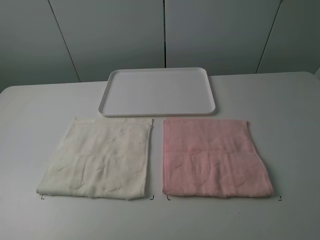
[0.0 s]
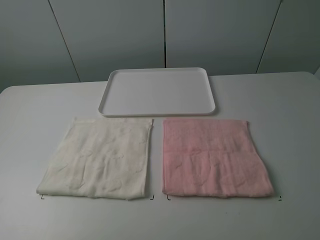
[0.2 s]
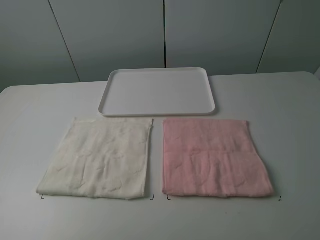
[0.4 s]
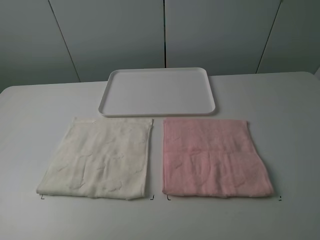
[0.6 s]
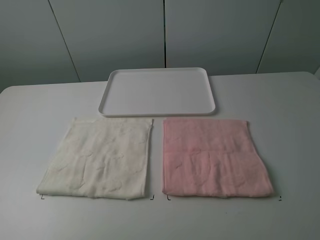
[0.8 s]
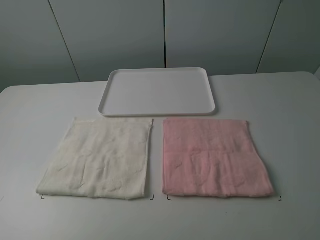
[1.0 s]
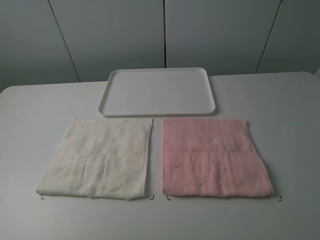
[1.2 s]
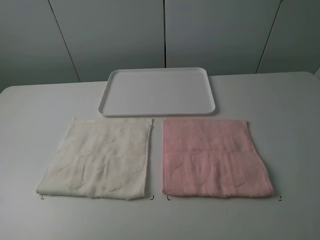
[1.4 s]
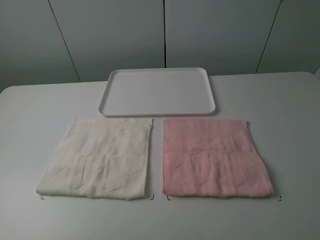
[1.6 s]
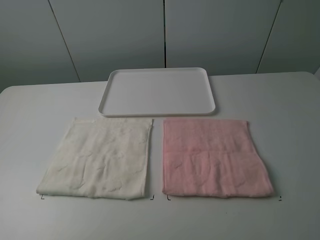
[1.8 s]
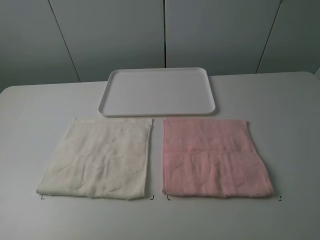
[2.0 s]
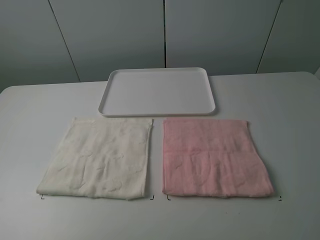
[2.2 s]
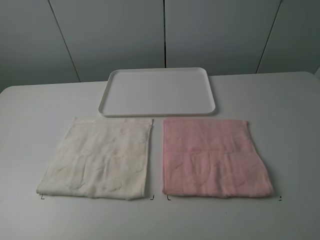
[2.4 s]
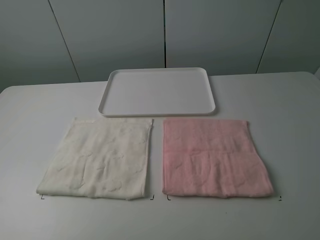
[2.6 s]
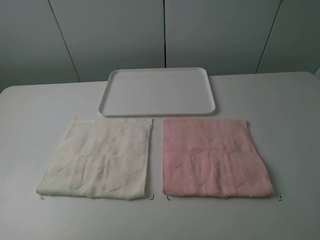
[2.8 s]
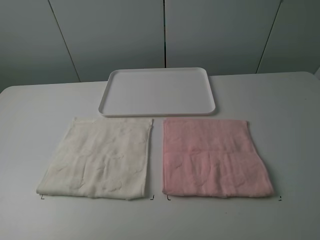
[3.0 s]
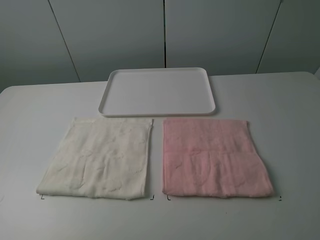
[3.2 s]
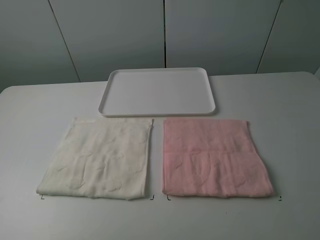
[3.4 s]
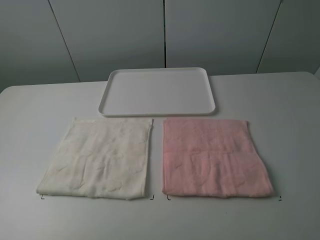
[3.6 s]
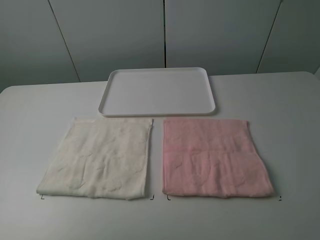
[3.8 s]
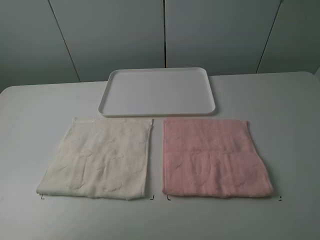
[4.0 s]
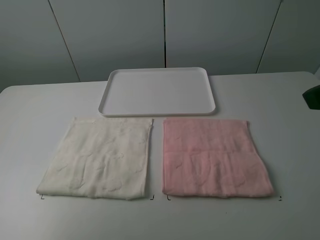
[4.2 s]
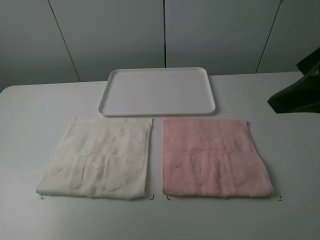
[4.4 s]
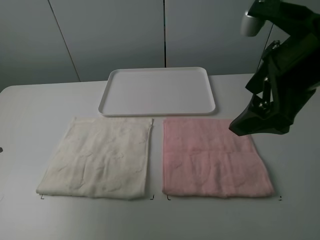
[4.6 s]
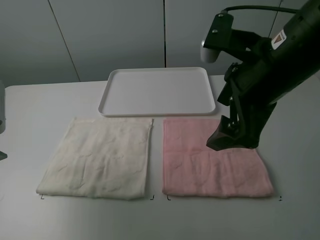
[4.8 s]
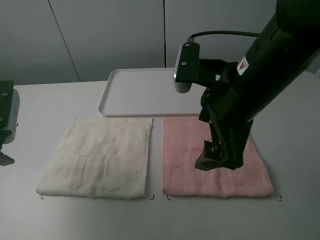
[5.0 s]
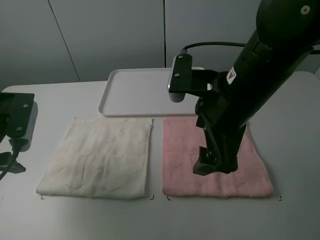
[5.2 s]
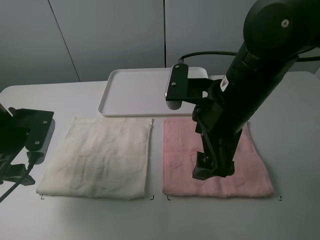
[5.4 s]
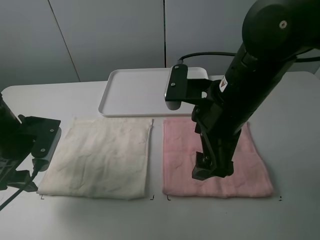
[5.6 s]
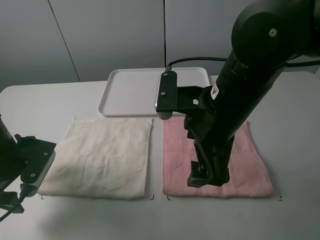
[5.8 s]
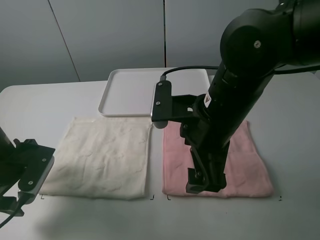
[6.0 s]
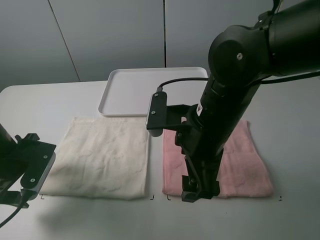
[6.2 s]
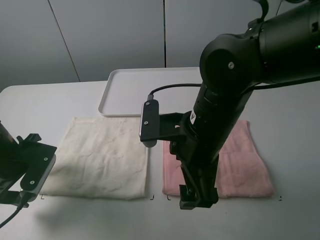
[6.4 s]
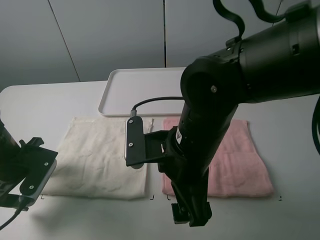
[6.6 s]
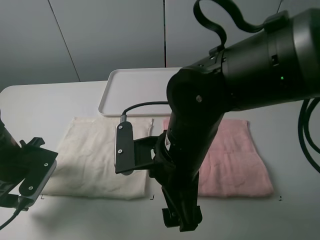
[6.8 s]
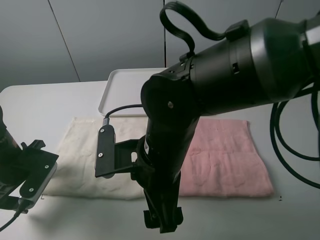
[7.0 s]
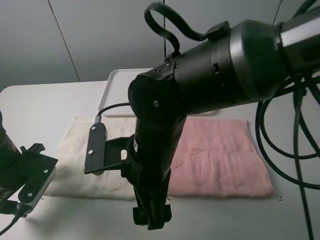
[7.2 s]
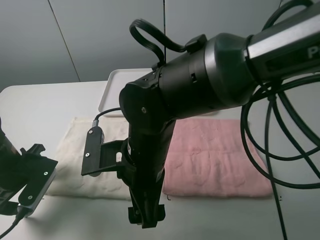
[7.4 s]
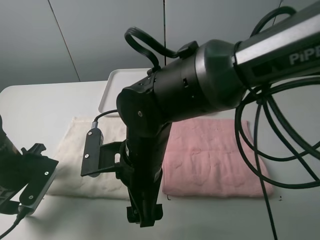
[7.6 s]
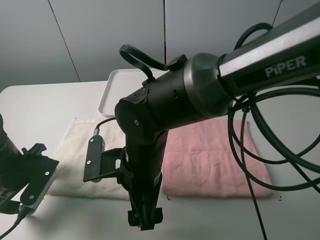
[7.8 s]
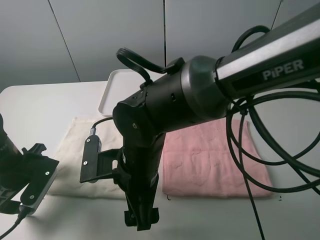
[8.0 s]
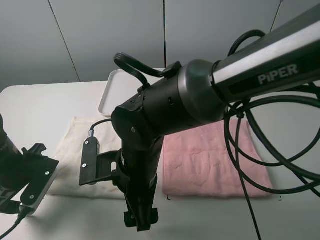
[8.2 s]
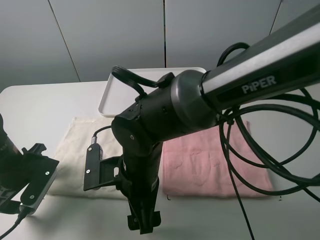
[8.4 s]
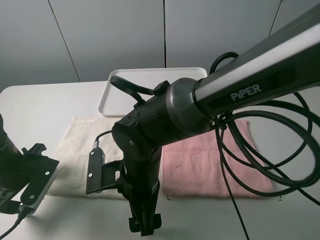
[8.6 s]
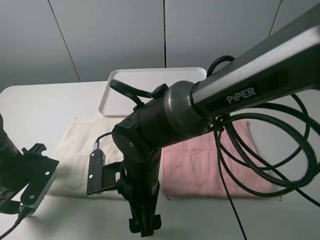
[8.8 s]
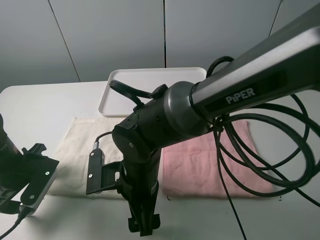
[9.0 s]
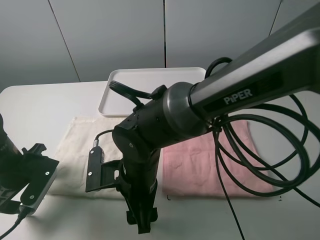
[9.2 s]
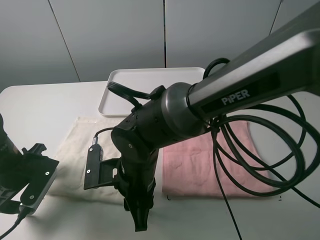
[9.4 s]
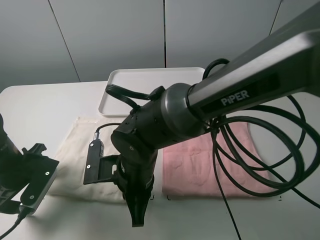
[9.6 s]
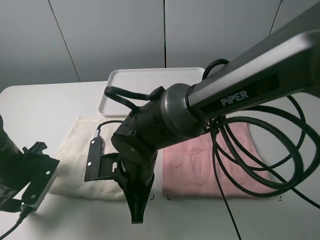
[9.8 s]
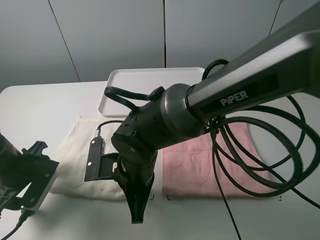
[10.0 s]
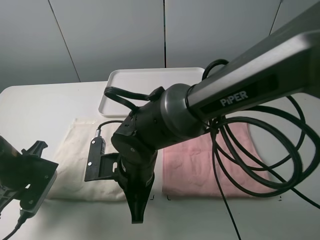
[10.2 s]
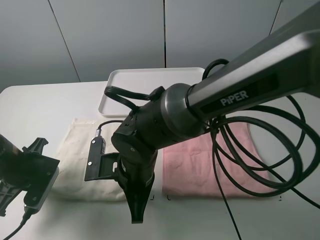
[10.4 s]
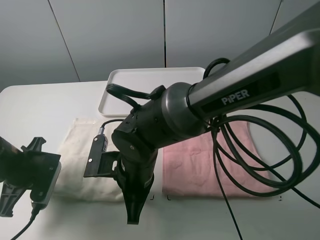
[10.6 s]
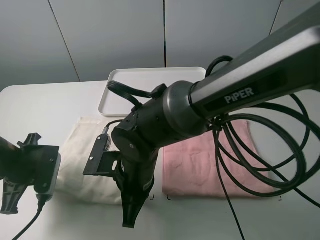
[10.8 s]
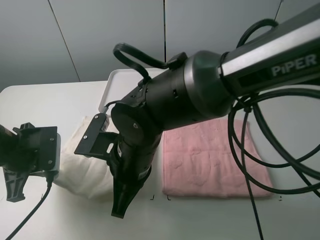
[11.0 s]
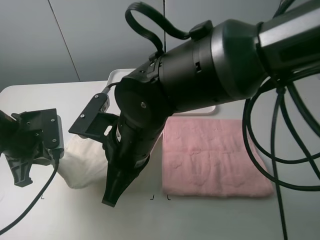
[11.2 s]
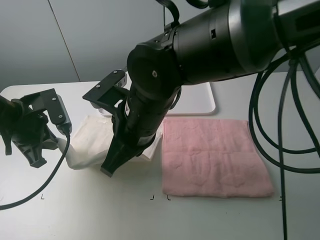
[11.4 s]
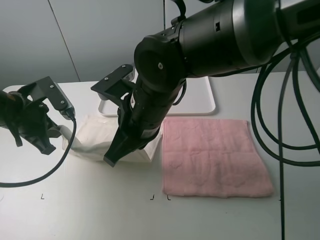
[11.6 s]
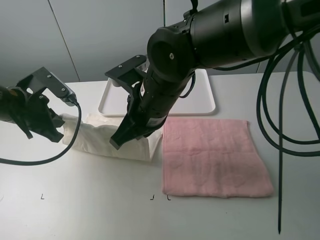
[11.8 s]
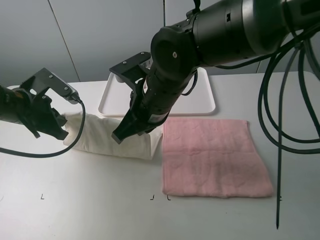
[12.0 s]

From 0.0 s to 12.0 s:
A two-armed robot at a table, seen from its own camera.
Task of the whole recording: fold one of the towels by two grippers and place it on the tray,then fold another towel by two grippers and place it on the folded towel.
Step, from 0.0 s to 10.8 s: Grasp the white towel with the left gripper.
From 0.0 s to 3.0 s: Neither gripper changes place.
From 3.0 s to 4.4 s: Both grippers move forward, some 15 cm.
From 4.4 s to 6.0 s: The left gripper goes some 15 cm downward. Meanwhile the right gripper goes roughly 20 cm to the left and downward.
From 6.0 s to 7.6 s: The right gripper shifts roughly 10 cm to the left and downward.
From 7.6 s to 9.0 s: The right gripper travels downward by some 5 cm.
From 9.0 s to 10.4 s: The right gripper closes its fingers; the left gripper closes.
From 10.4 s to 12.0 s: The left gripper goes some 10 cm forward and upward. The right gripper goes about 10 cm upward and forward.

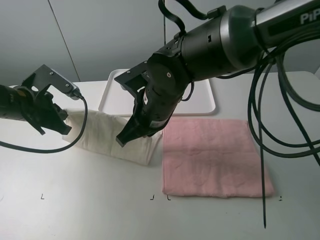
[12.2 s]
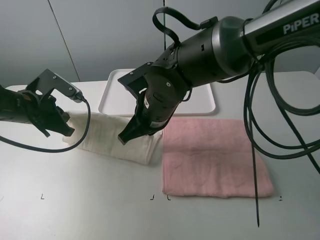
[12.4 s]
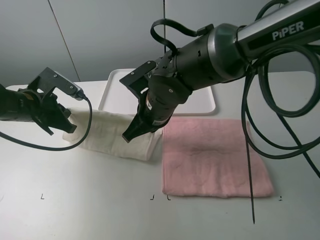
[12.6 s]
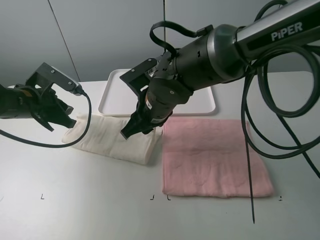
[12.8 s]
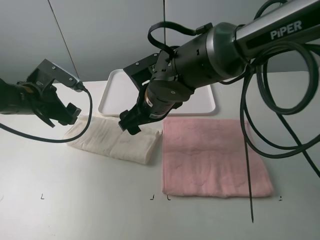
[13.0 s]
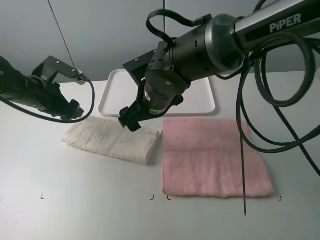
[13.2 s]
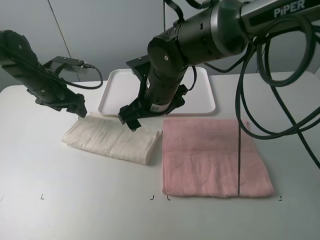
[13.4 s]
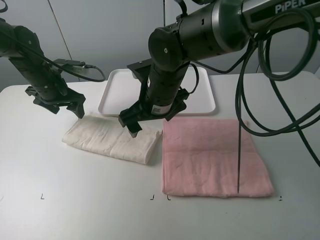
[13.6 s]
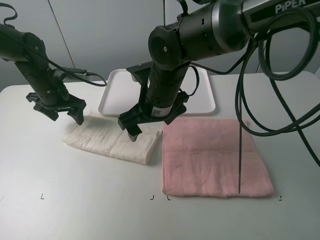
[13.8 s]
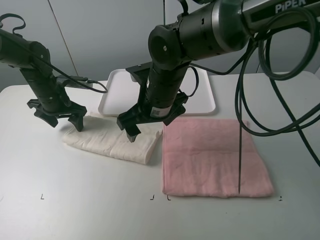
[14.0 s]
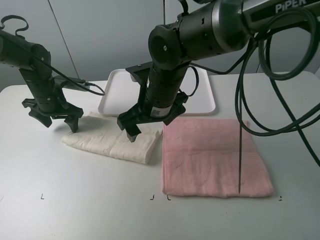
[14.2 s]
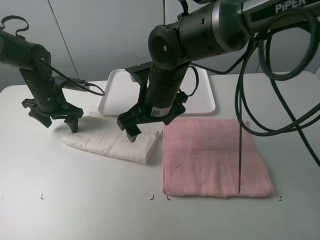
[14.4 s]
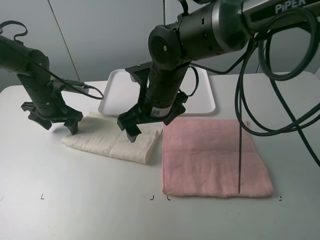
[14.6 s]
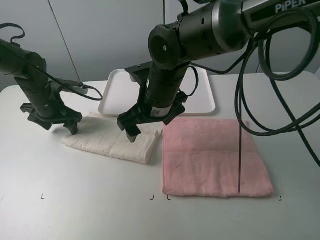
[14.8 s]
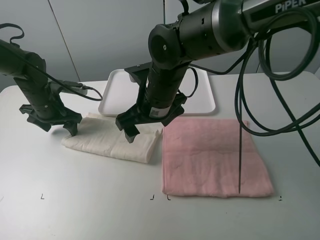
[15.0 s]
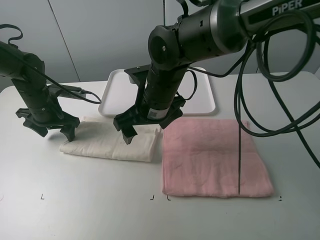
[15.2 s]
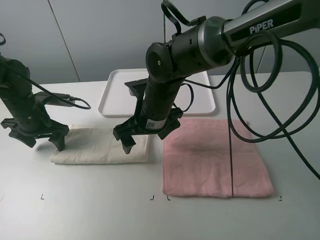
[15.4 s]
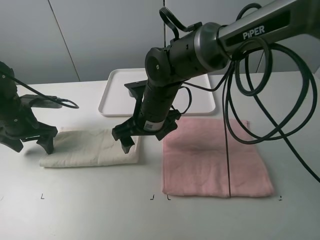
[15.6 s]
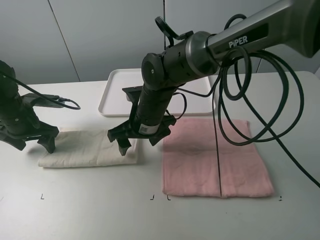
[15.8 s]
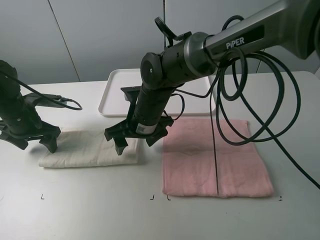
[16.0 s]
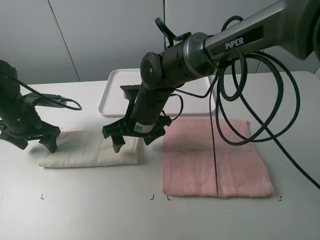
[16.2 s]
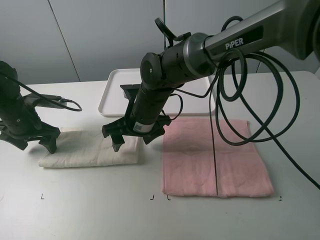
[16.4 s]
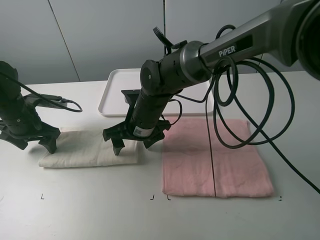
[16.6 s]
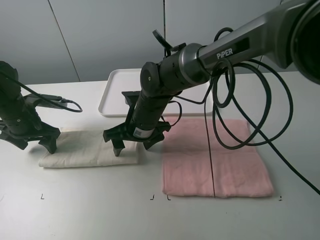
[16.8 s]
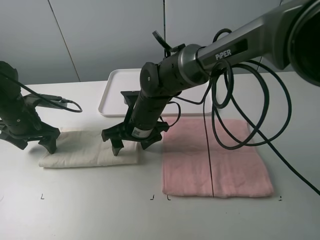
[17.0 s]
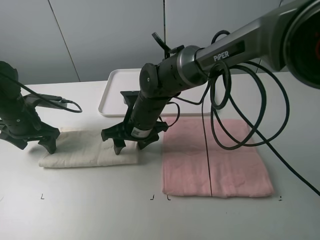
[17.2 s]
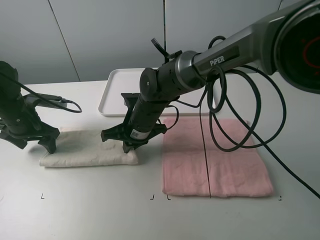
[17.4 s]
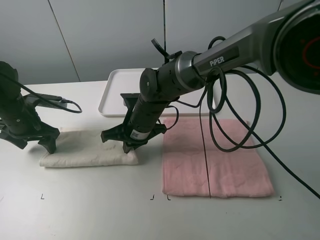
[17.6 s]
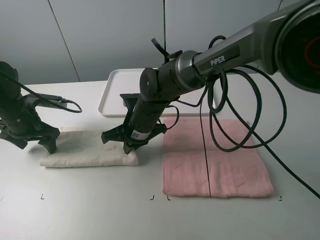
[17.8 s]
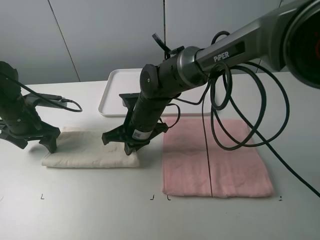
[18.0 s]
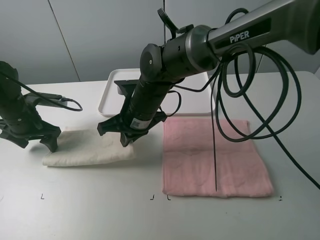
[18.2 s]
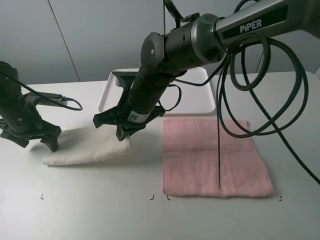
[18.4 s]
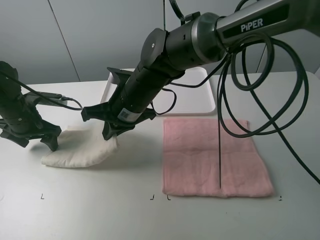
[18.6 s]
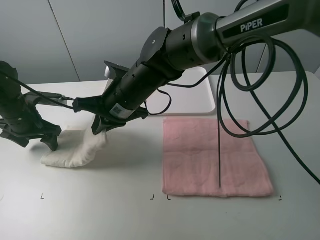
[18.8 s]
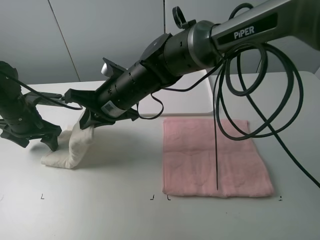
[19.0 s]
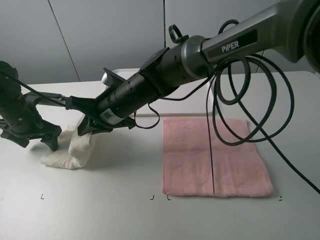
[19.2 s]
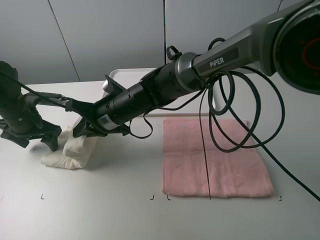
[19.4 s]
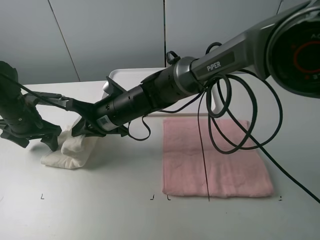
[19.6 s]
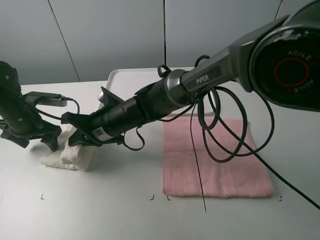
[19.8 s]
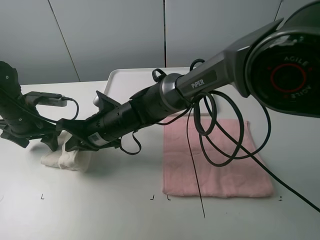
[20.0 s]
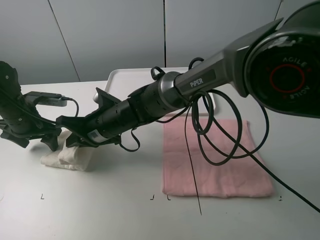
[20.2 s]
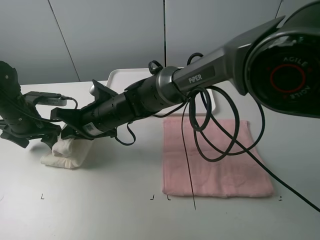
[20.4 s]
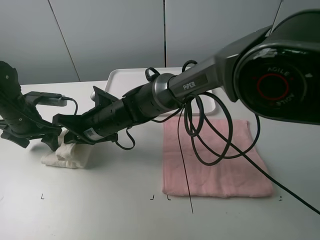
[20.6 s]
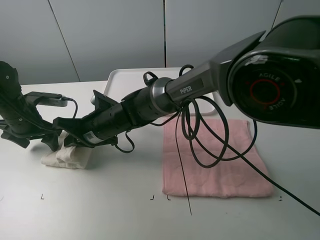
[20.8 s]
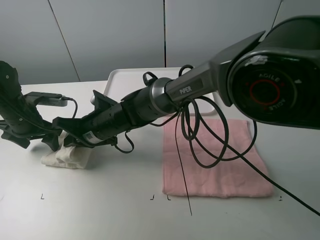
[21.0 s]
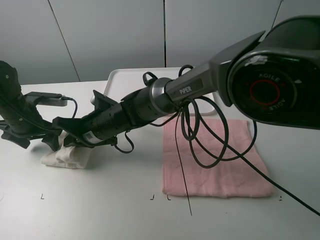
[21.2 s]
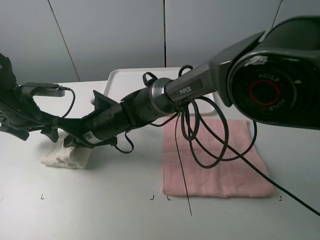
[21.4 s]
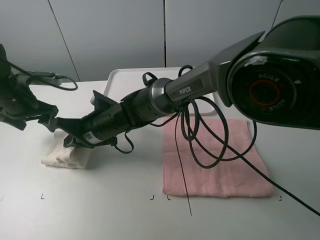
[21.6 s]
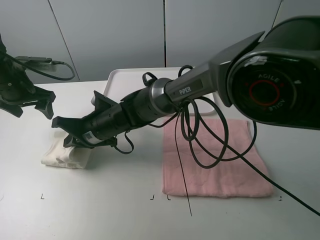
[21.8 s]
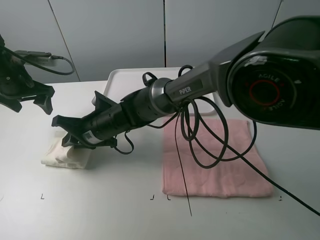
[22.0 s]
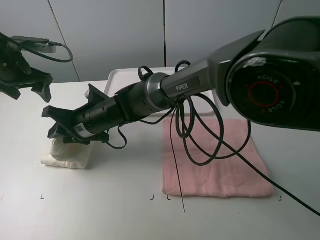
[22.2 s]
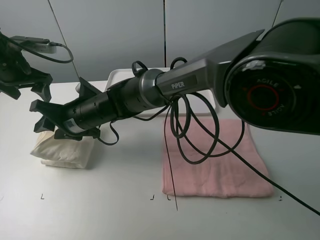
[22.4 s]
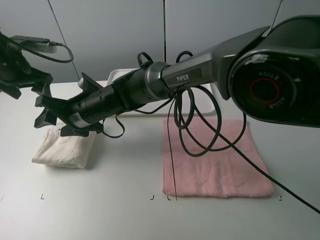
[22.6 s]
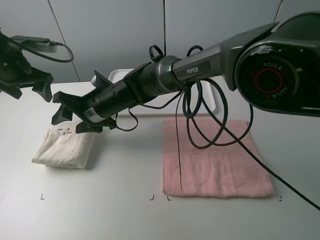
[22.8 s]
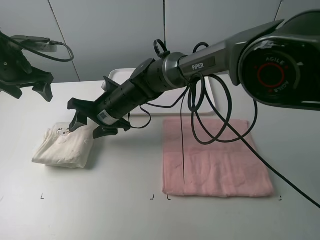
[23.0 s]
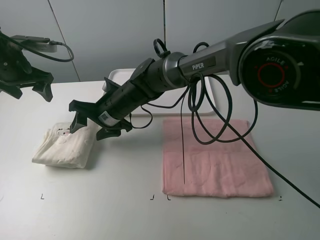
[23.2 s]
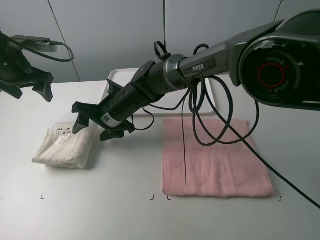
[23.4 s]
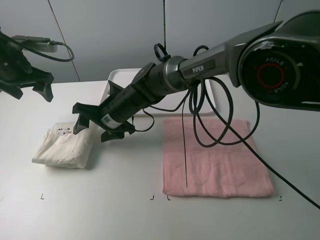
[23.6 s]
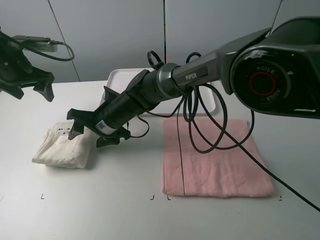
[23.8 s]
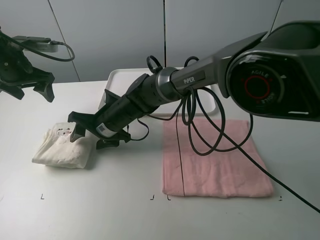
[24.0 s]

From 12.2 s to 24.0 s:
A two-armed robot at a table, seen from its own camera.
Task of the whole recording: fold one of the towels by two grippers and place it on the tray,then fold another towel by two grippers and place it on the folded towel.
Step, from 13.2 s to 14.8 s: Press the white towel with the left gripper.
Step, from 15.0 s to 17.6 s: Grasp the white towel with the right gripper.
Step, from 17.8 s to 22.6 s: Fold the white towel from right to left with right gripper.
From 12.2 s to 13.6 s: The right gripper opens up. Meanwhile the left gripper travels forward by roughly 10 cm, and opens its fingers.
From 13.6 s to 15.2 s: The left gripper ends up about 5 cm from where it was.
From 15.2 s to 16.6 s: The left gripper moves about 5 cm. Meanwhile the right gripper goes some 5 cm downward.
From 16.6 s to 18.2 s: The right gripper closes its fingers.
From 18.2 s to 19.6 s: The right gripper changes place by roughly 5 cm.
From 21.0 s to 22.6 s: The left gripper moves upward and forward, about 10 cm; the right gripper opens.
From 22.6 s to 24.0 s: The right gripper moves some 5 cm.
